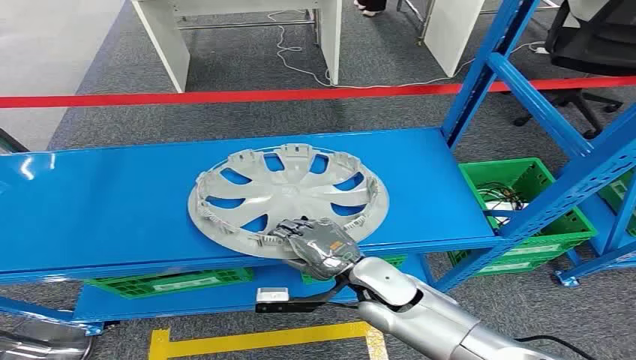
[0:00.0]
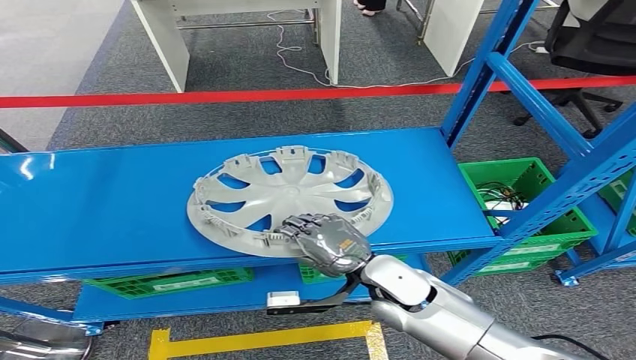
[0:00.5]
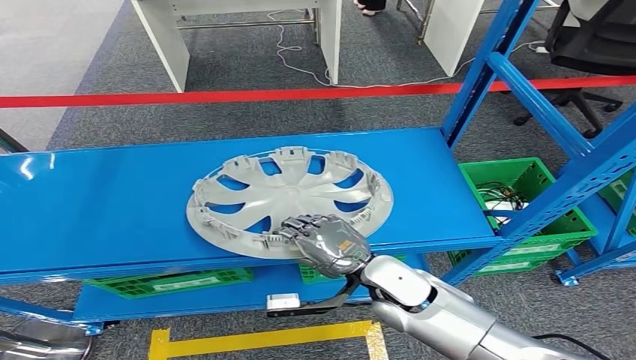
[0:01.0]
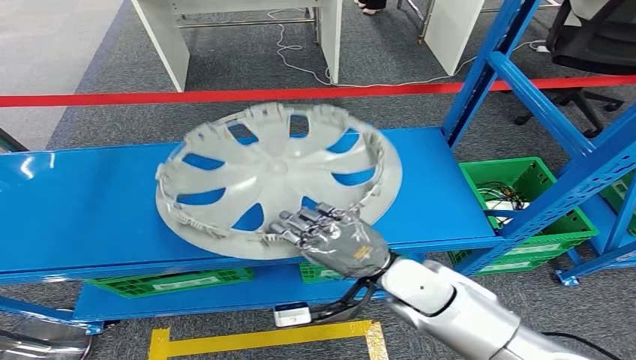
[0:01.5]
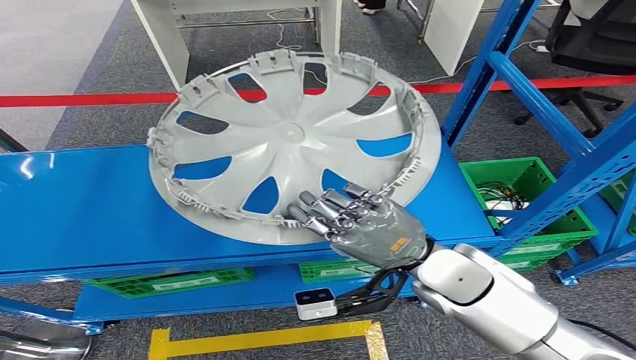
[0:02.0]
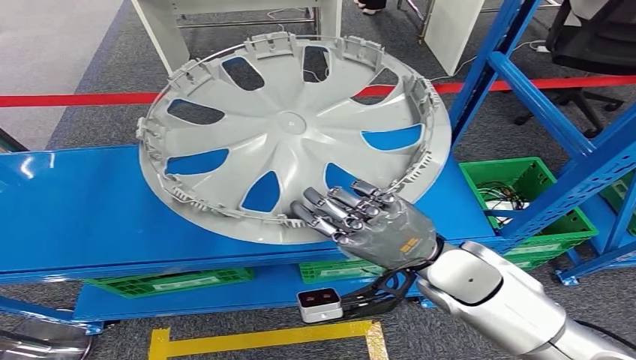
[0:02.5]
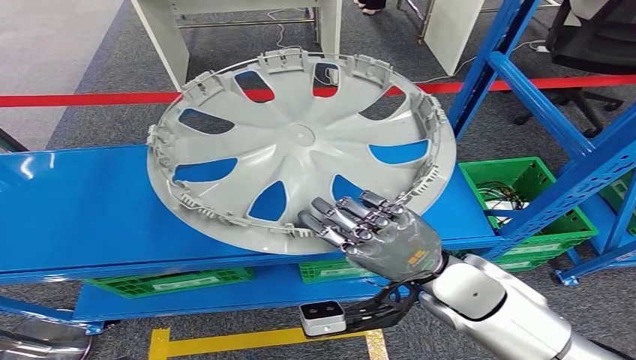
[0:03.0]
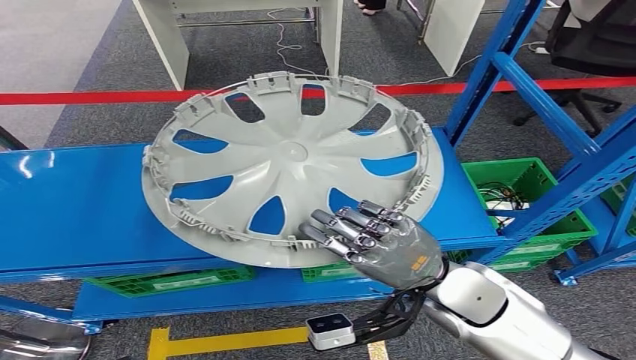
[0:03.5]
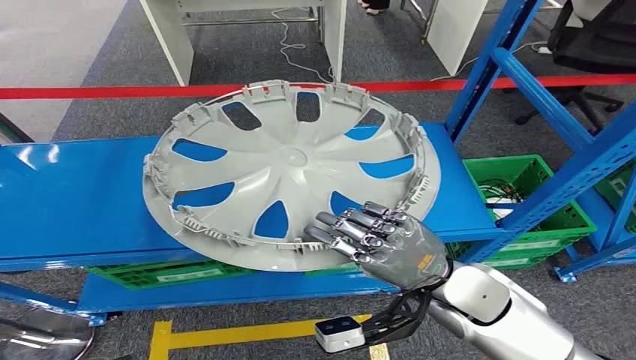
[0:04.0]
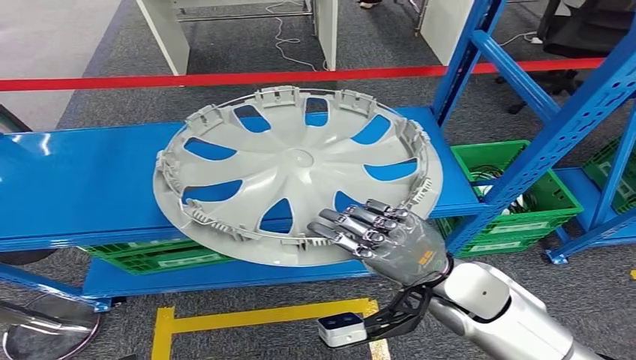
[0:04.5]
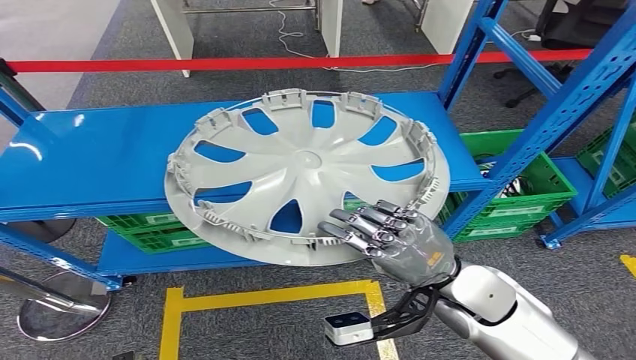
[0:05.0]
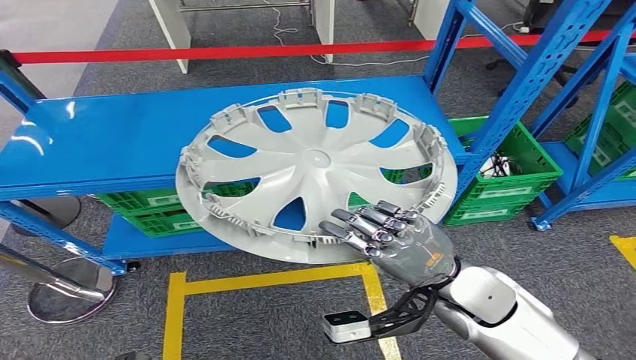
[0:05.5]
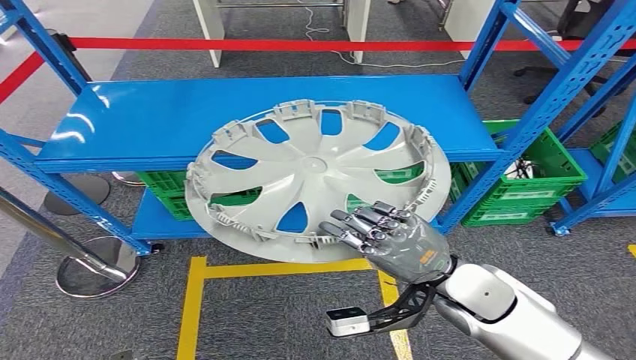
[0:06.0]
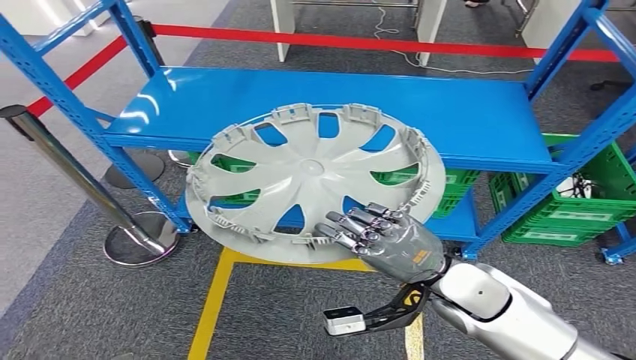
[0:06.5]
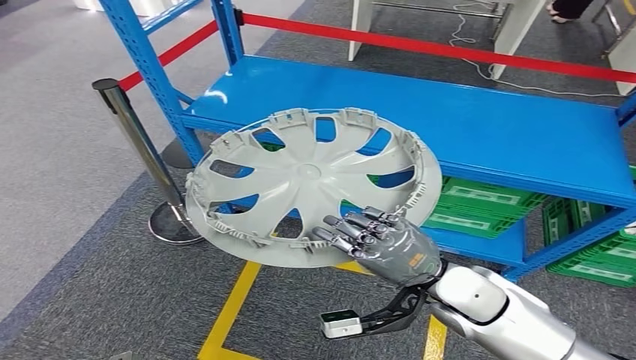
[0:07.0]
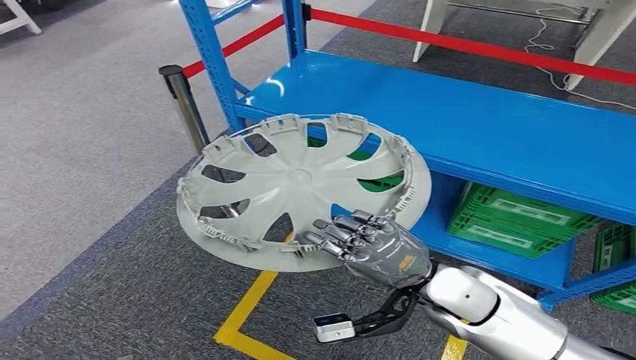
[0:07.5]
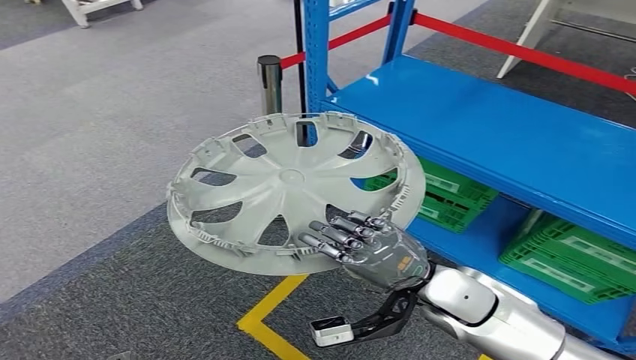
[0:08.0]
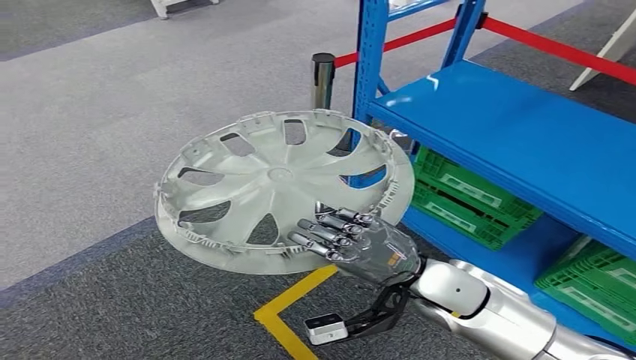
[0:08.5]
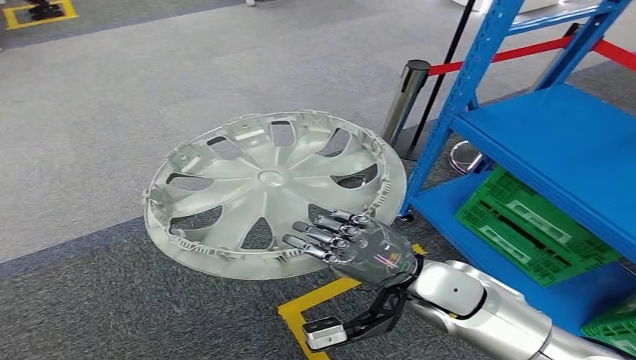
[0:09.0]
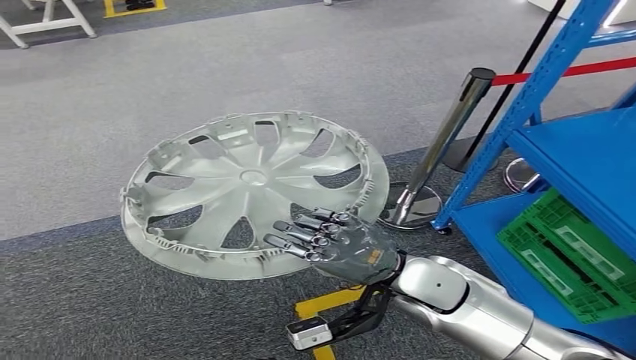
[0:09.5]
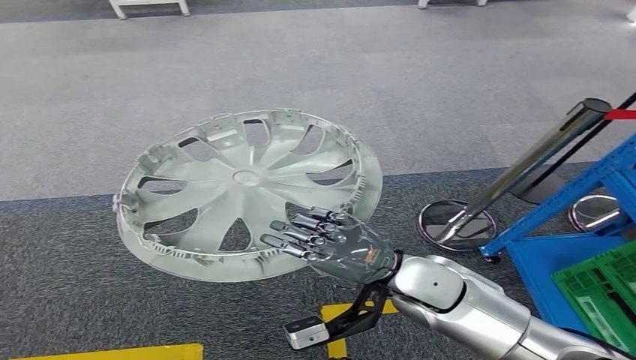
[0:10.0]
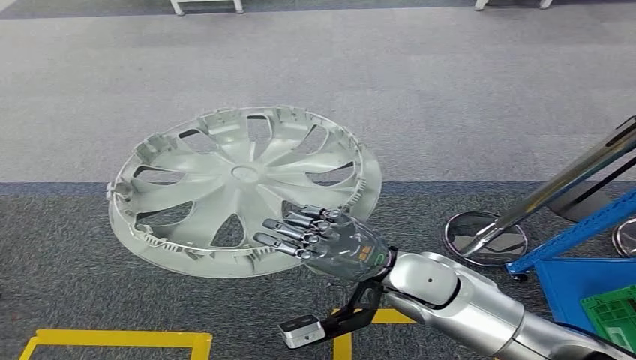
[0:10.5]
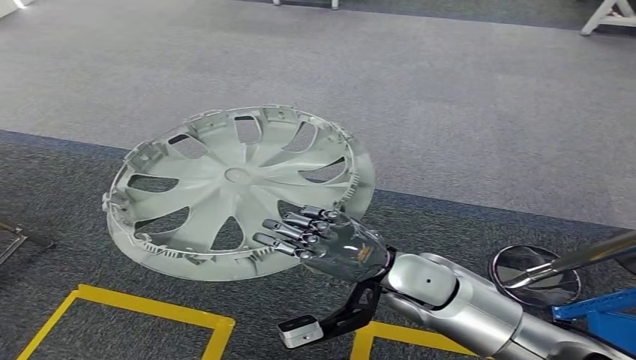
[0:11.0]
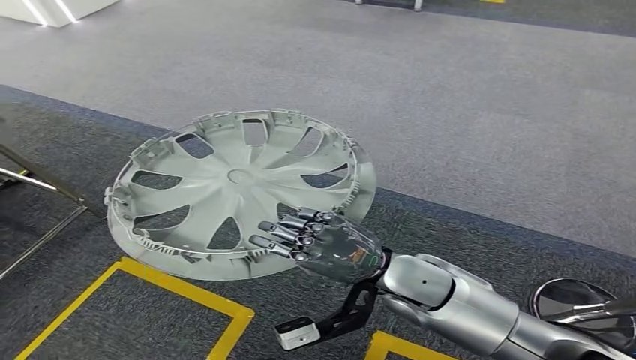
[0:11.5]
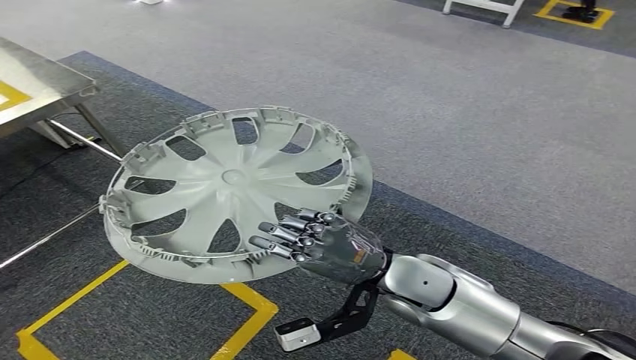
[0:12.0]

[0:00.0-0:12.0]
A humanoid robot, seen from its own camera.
Step, 0:00.0 to 0:01.5: Take small components from the rack.

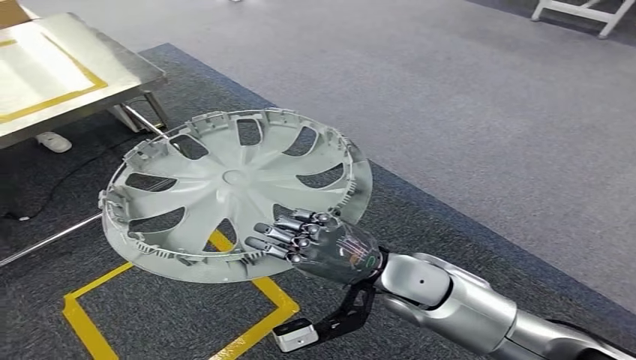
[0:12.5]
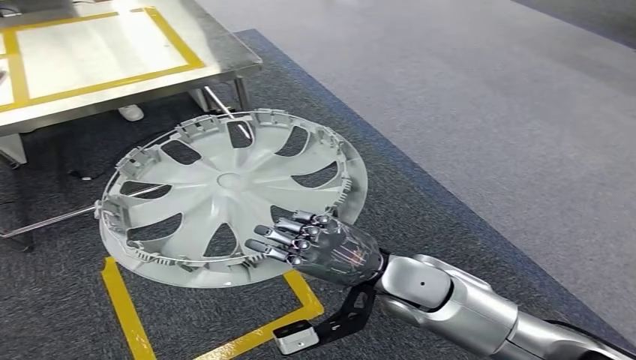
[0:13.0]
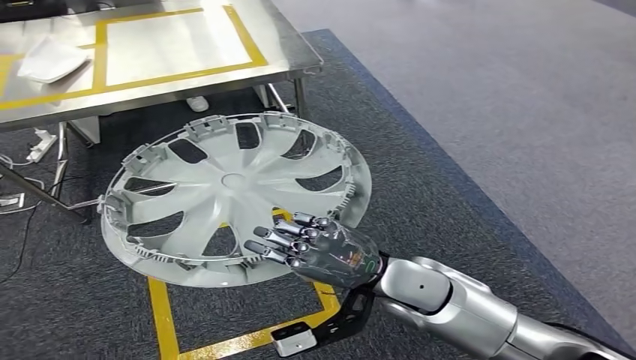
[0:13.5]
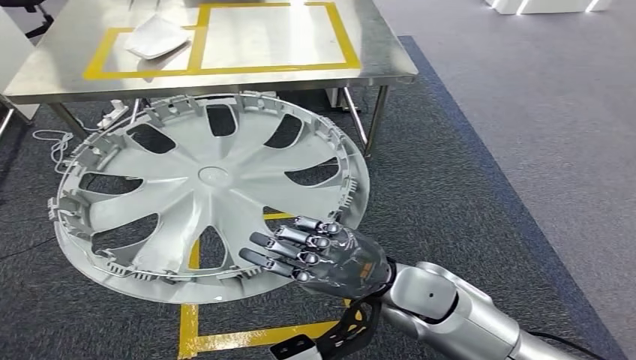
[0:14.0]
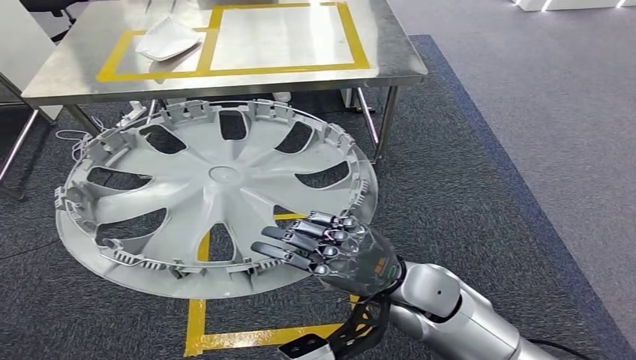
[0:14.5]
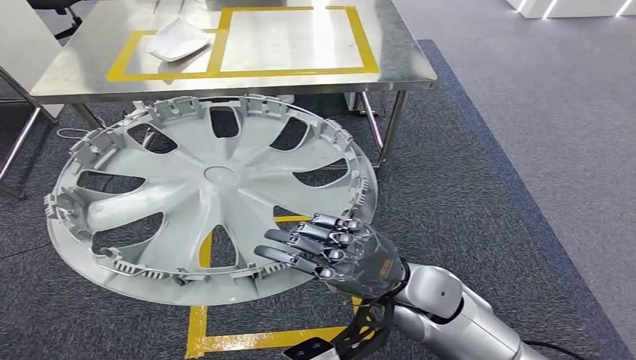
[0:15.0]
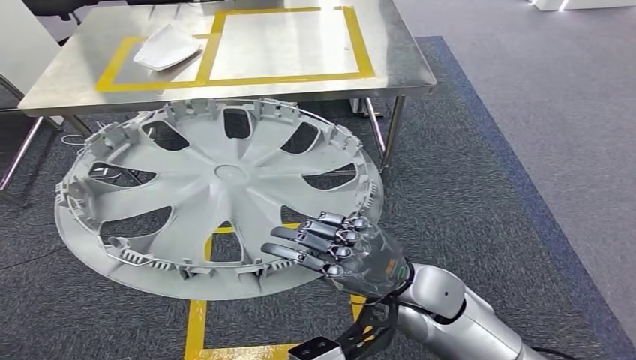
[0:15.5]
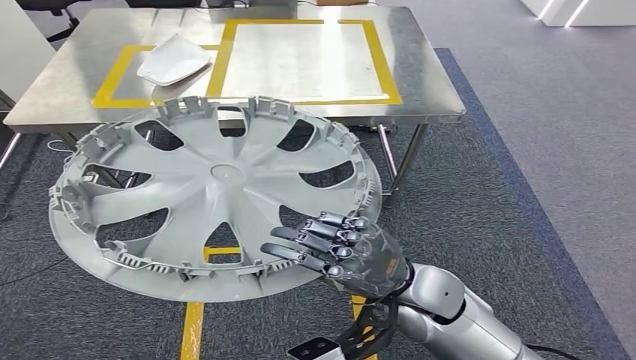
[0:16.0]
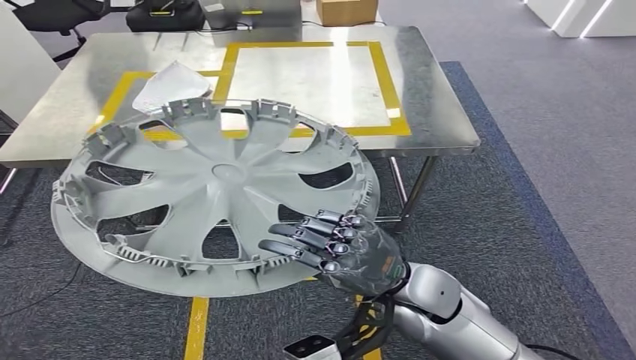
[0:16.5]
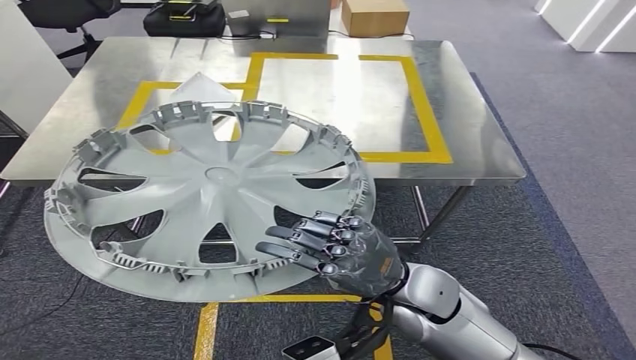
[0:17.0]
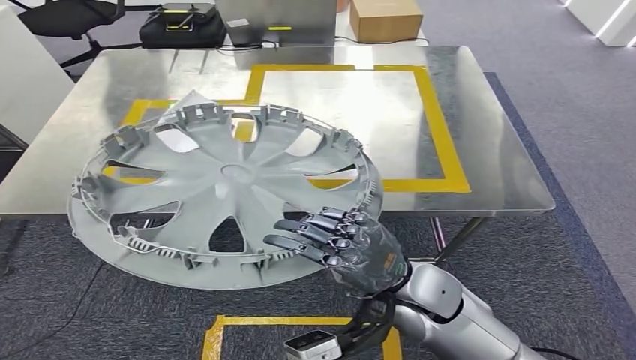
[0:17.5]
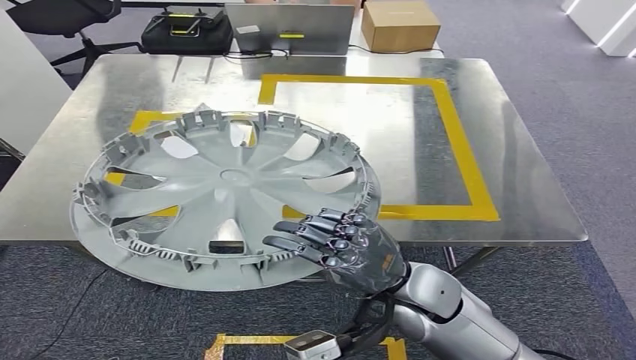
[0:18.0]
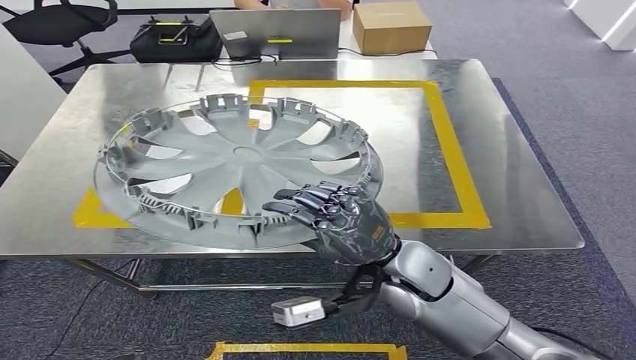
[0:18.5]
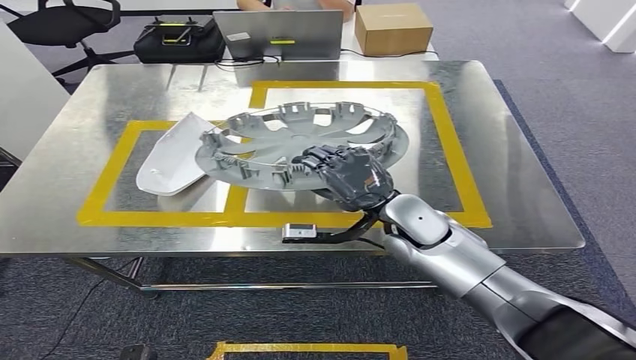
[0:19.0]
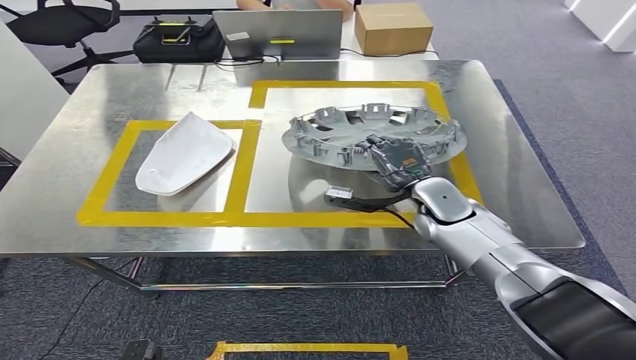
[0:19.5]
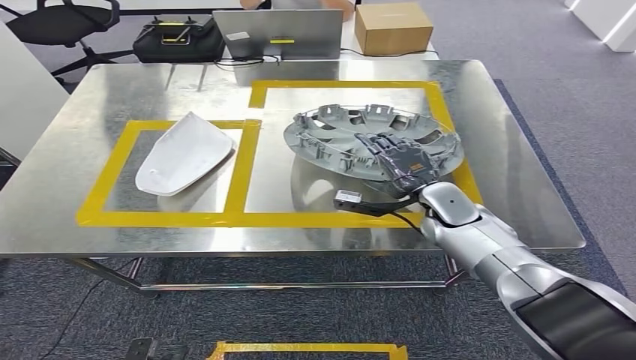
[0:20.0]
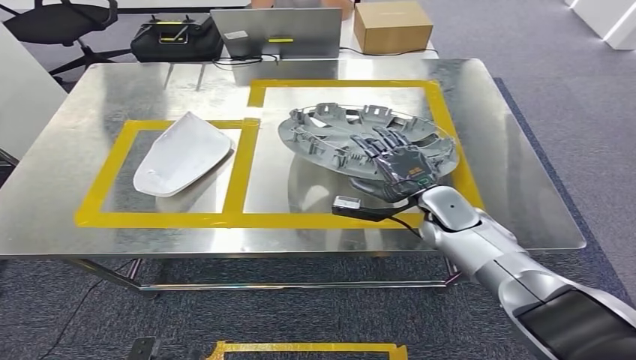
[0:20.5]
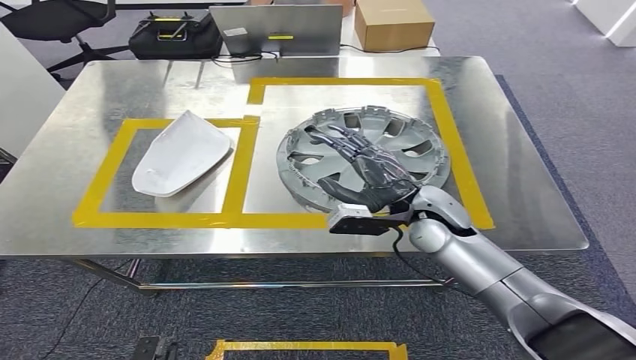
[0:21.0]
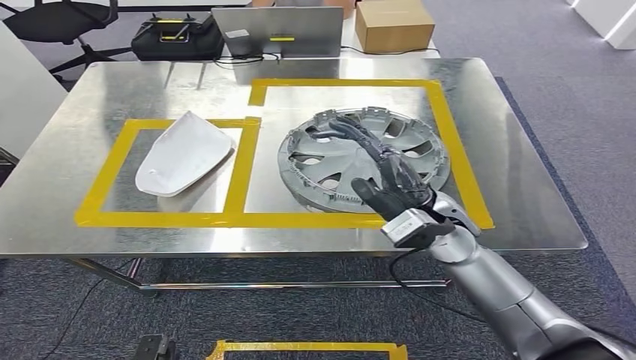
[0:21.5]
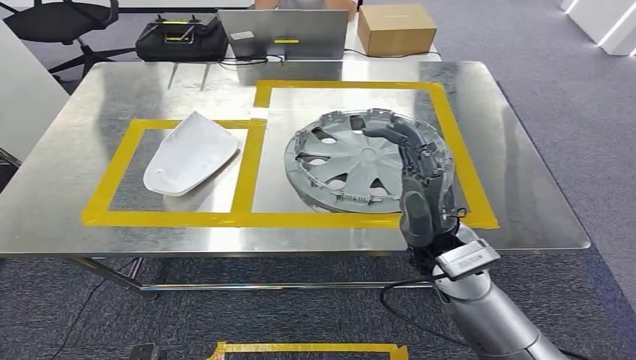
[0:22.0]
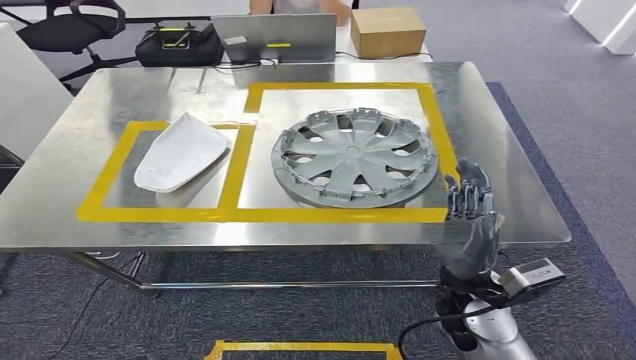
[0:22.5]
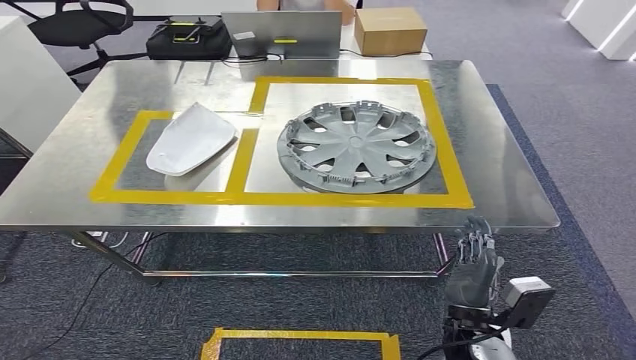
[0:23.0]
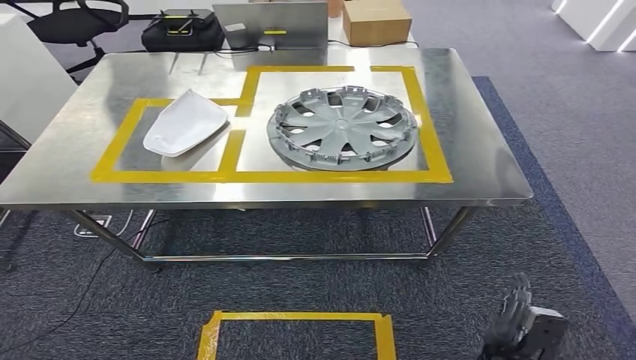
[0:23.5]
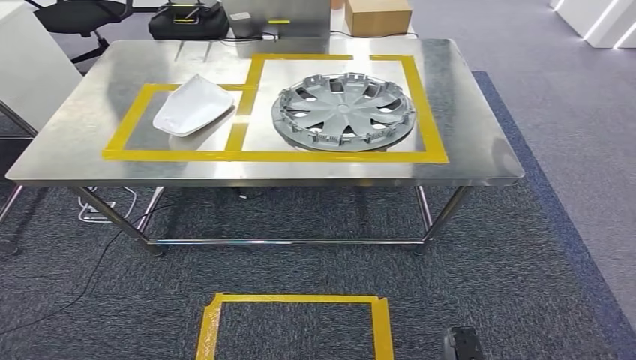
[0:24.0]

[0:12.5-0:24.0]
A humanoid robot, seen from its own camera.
Step, 0:12.5 to 0:16.5: Move the small parts to the workbench.
